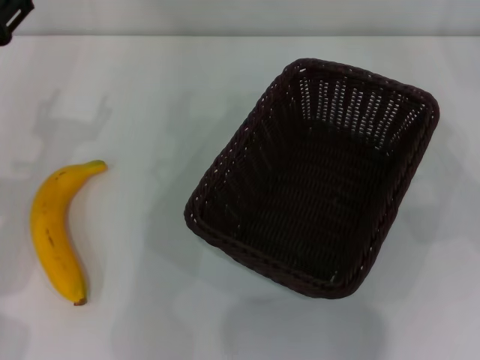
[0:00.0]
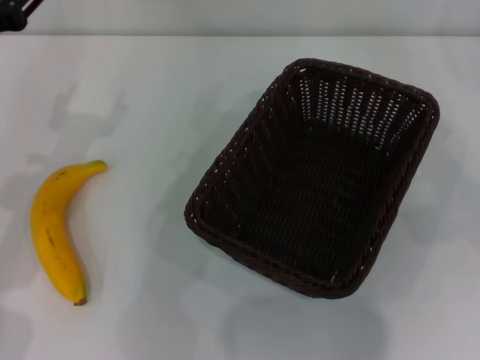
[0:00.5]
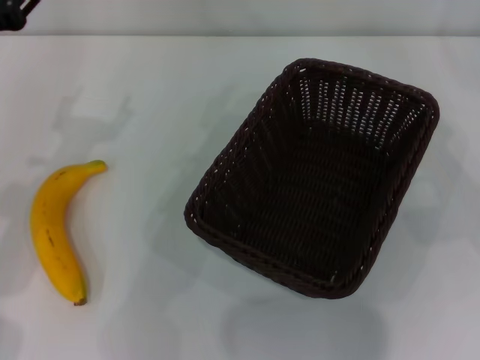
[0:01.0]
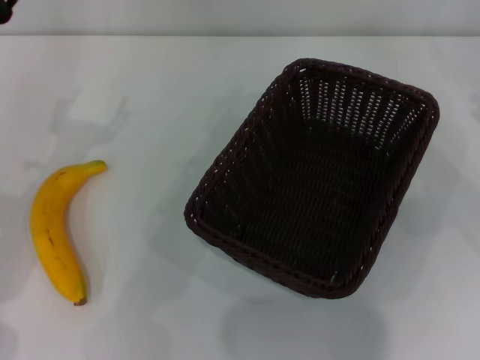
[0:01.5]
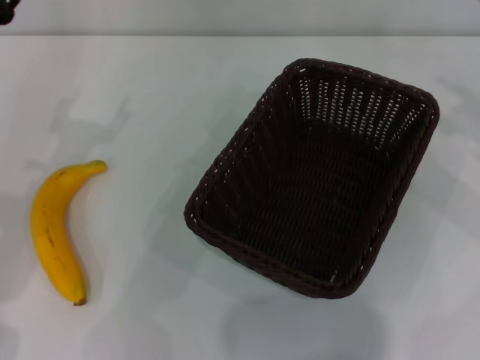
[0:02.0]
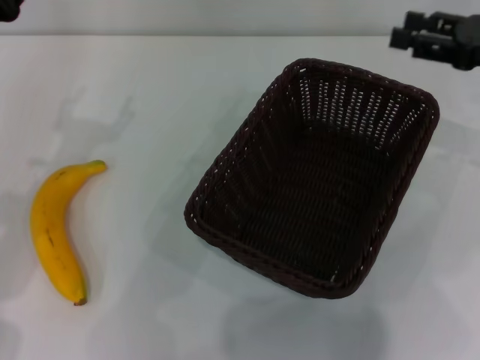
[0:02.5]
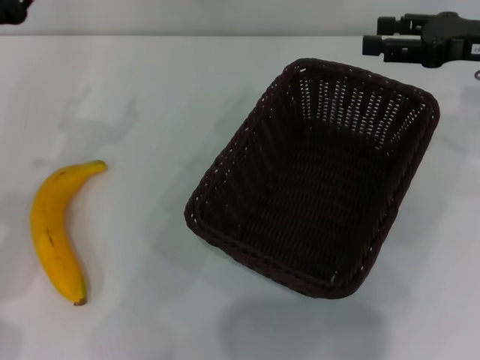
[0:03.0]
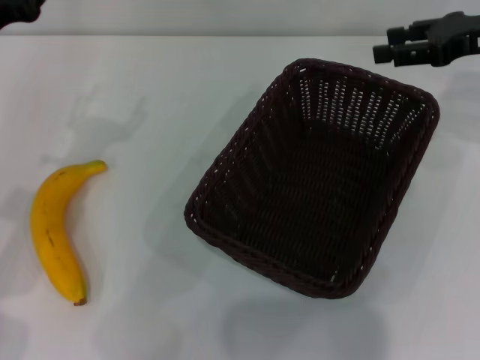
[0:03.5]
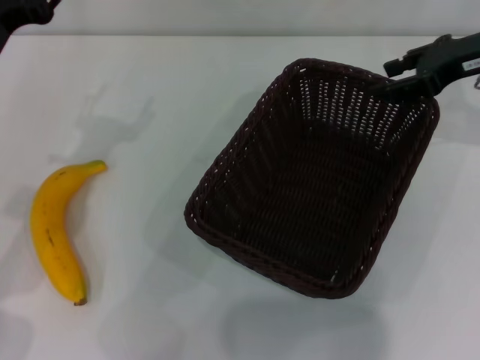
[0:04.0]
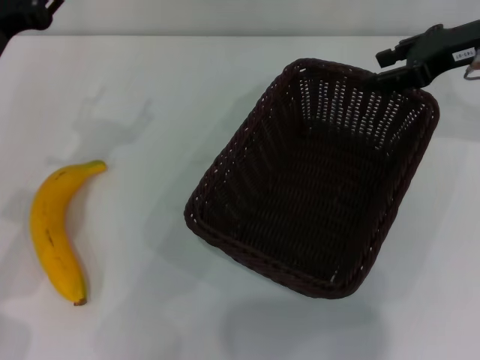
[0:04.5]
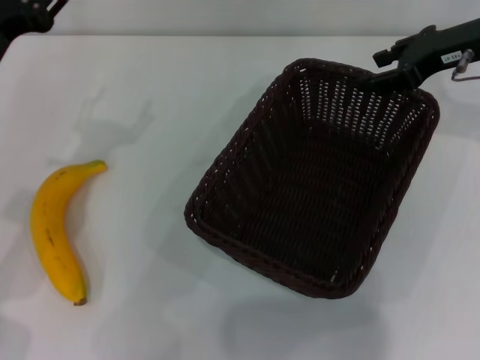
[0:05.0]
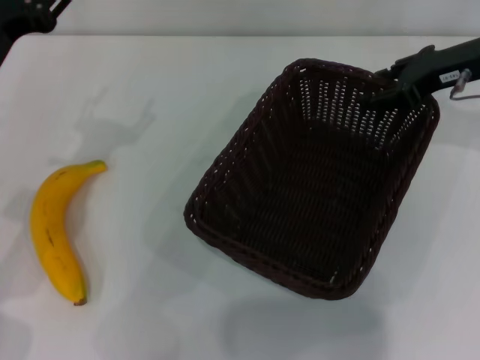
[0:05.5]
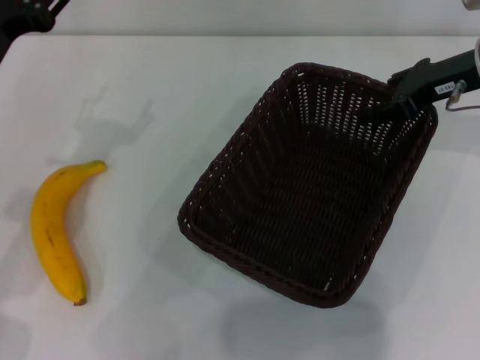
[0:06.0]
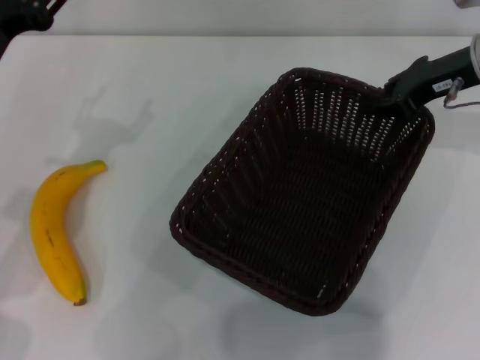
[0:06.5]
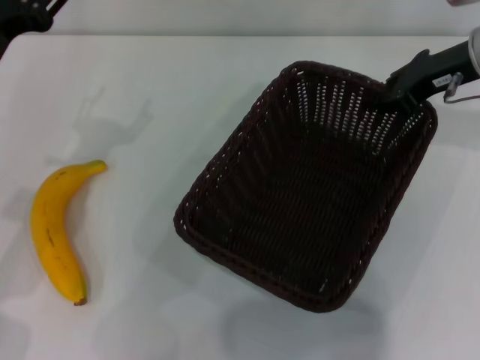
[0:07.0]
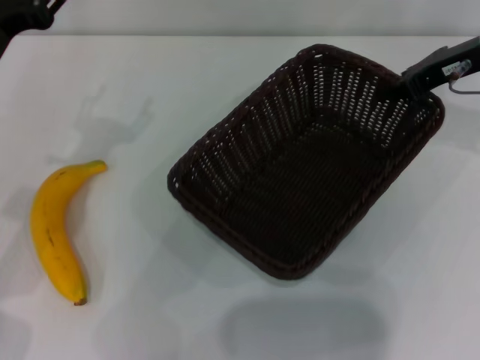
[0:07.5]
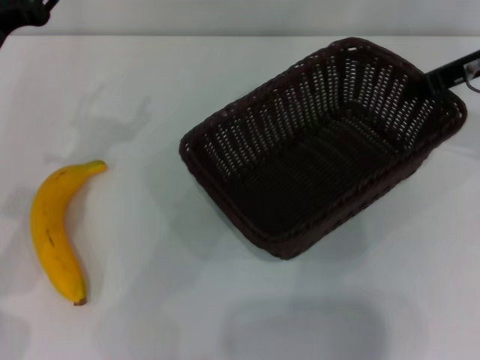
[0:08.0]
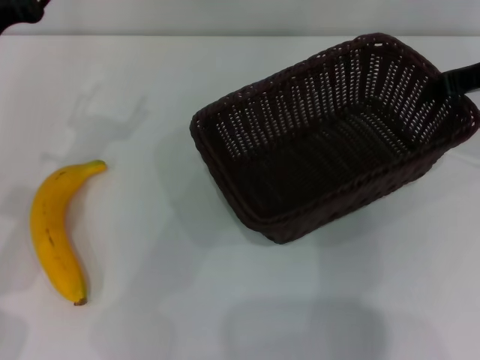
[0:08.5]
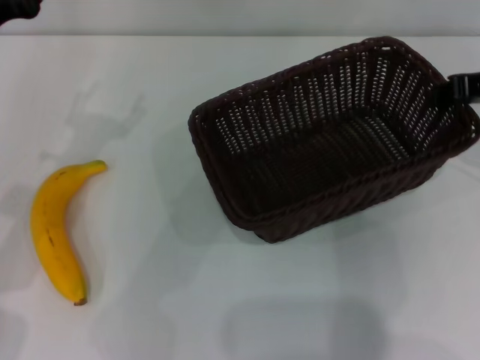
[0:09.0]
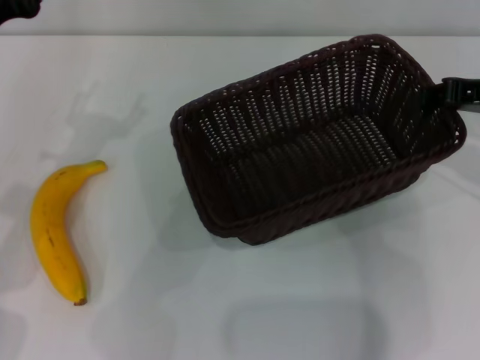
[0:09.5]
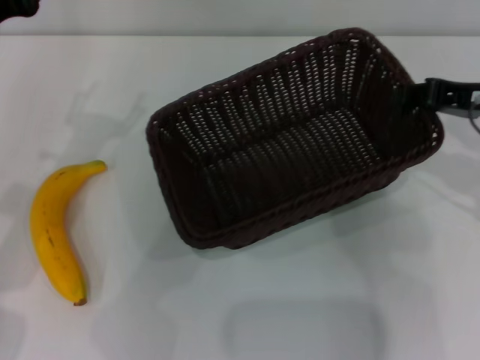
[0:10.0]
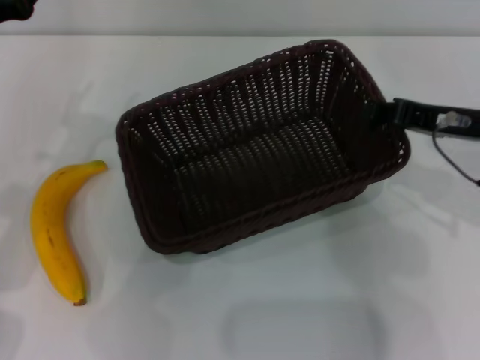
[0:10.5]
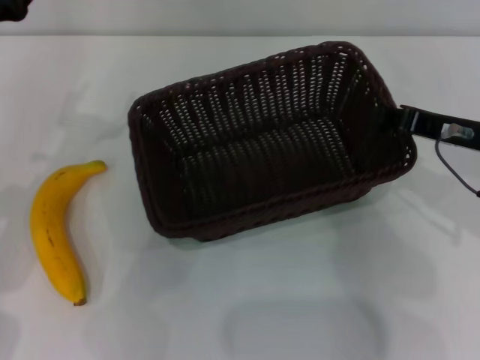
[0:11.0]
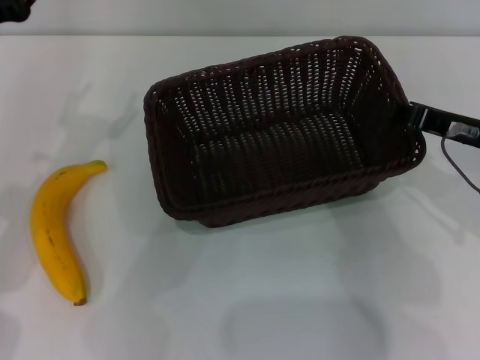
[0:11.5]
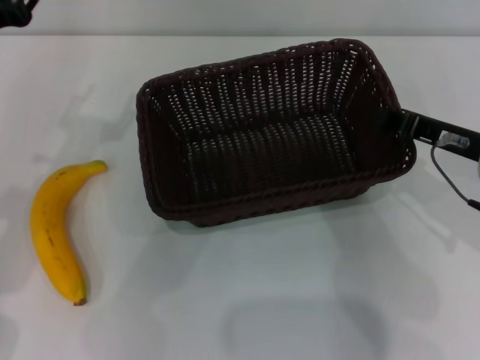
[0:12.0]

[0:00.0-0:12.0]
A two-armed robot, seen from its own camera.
Step, 0:00.0 to 0:07.5: Pick up the dark basket with the right gripper.
0:02.0 to 0:04.0: The right gripper shifts about 10 cm forward and to the left.
0:04.0 to 0:06.0: The grippers stay close to where they were, moving slightly.
0:06.0 to 0:08.0: The right gripper closes.
0:08.0 to 0:10.0: The right gripper goes approximately 10 cm backward.
0:10.0 to 0:12.0: The right gripper ends up some 5 cm from where it was.

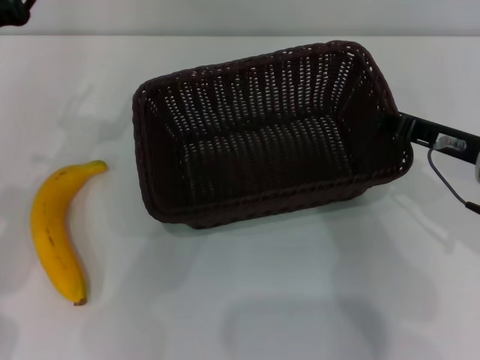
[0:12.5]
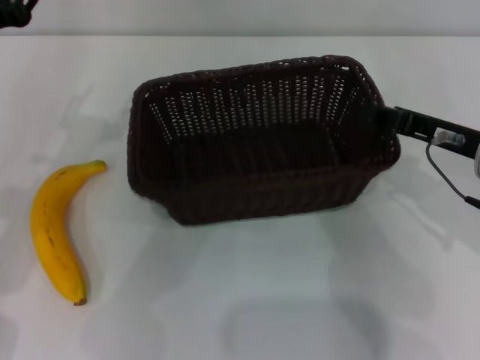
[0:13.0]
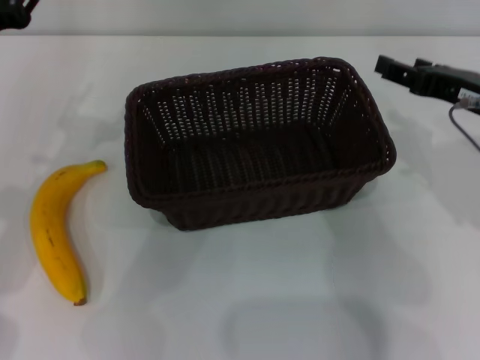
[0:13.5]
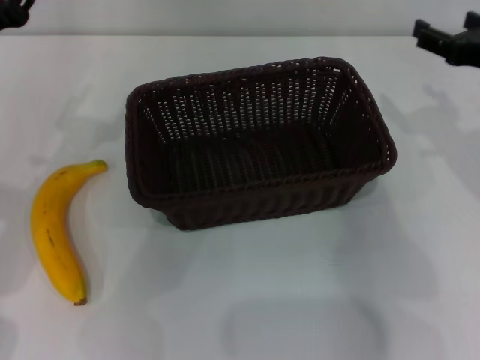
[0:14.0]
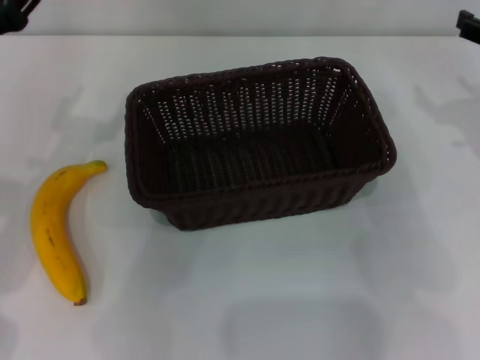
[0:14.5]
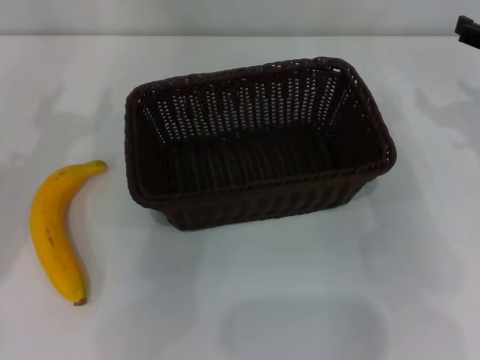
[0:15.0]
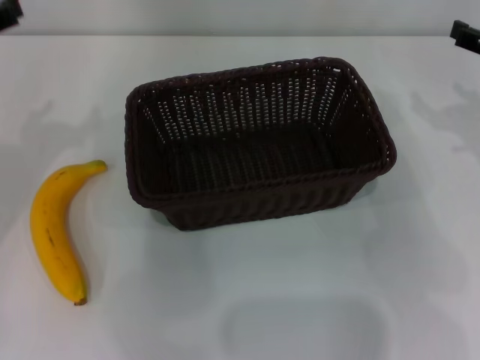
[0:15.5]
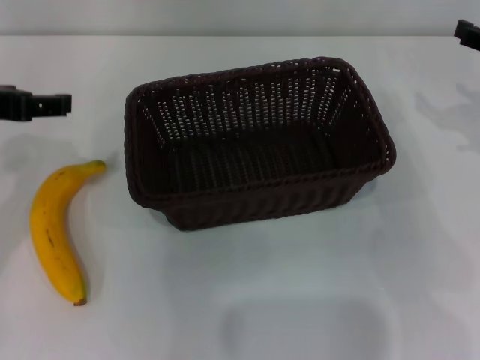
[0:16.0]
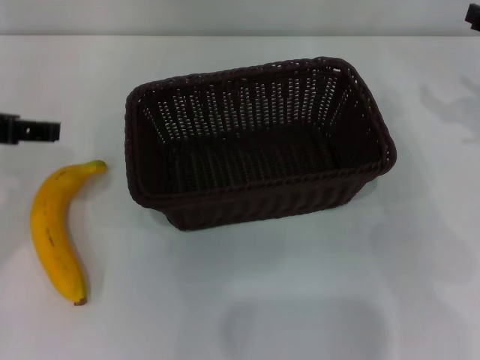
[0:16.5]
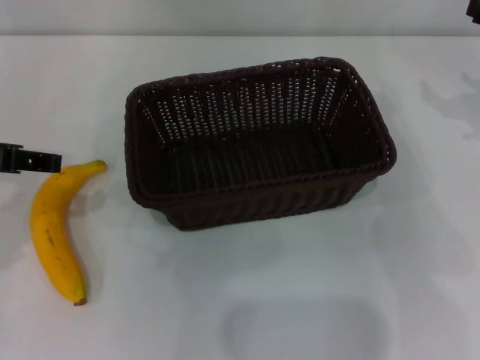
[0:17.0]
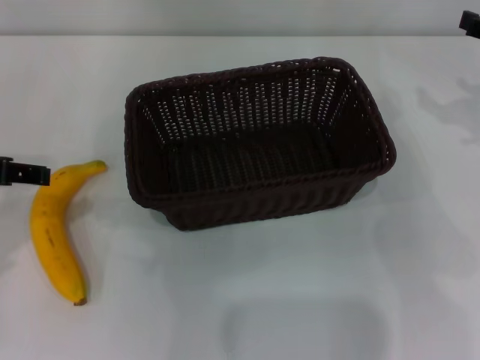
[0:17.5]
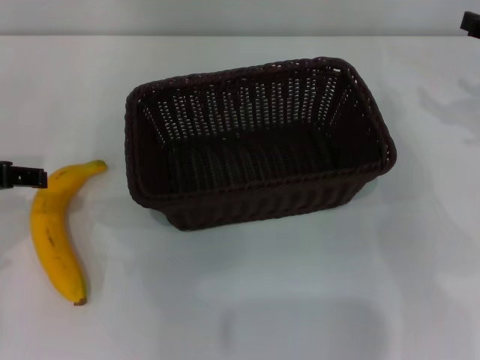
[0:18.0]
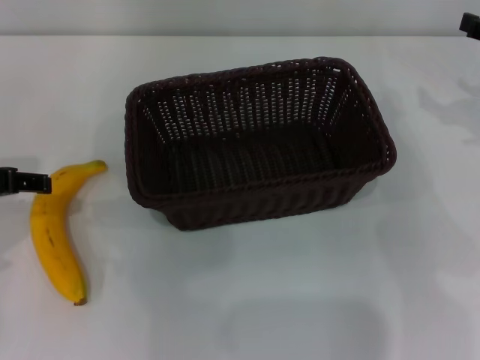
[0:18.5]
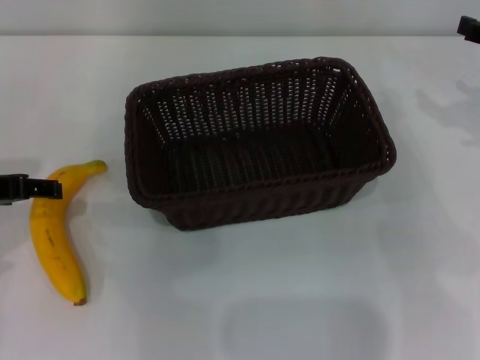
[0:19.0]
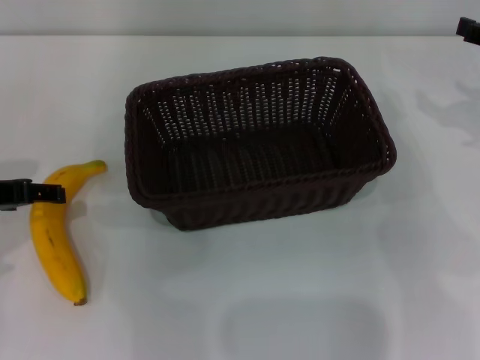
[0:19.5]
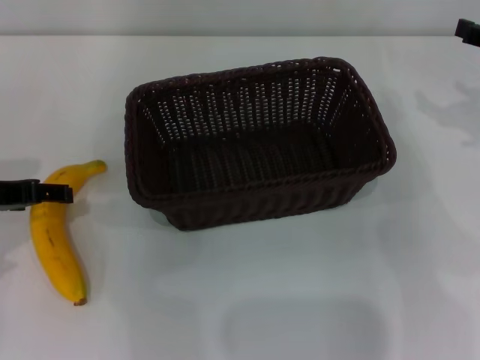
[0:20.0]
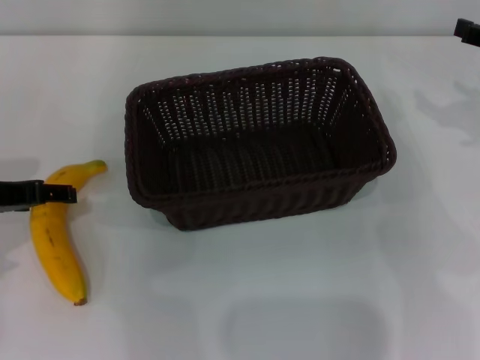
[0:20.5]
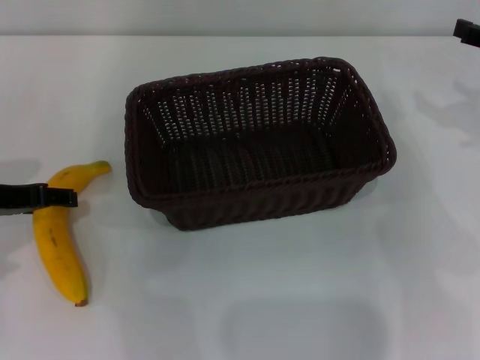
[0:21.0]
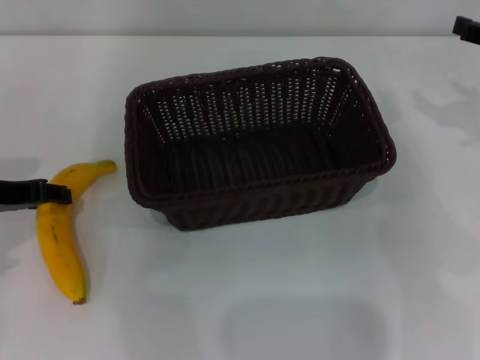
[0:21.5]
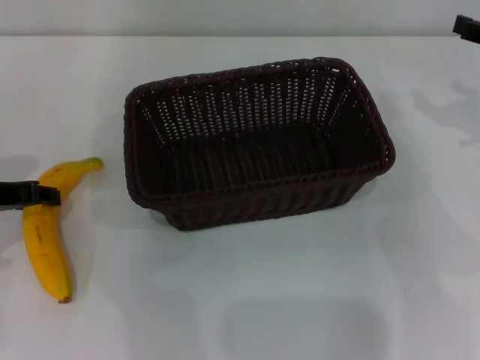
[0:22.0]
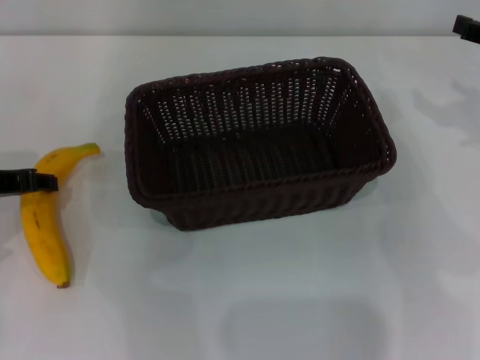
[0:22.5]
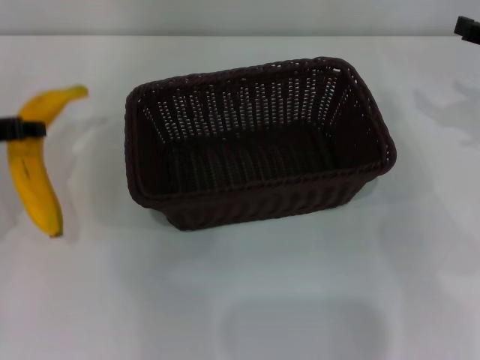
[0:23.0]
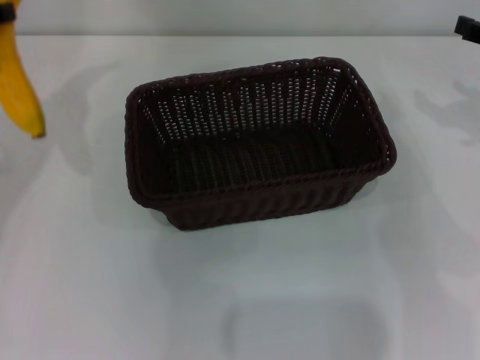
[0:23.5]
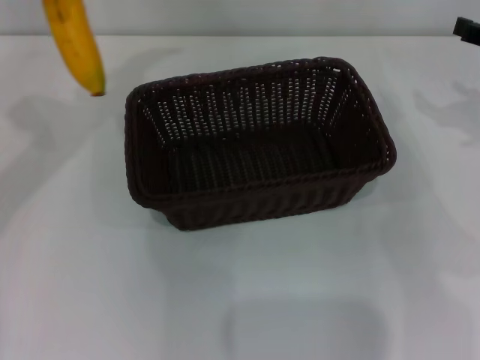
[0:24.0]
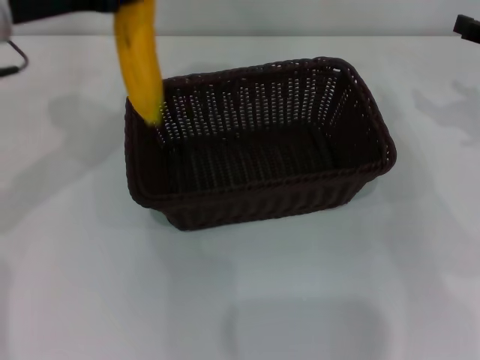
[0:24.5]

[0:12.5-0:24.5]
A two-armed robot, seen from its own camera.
Step, 0:13.5 to 0:22.5: Pick up the banana with the left gripper.
0:12.5 to 0:14.5: The right gripper heads to the right, covering some 5 cm, and opens.
0:14.5 to 0:16.5: The left gripper shifts some 5 cm upward.
0:16.5 to 0:18.5: The left gripper goes approximately 5 cm downward.
0:18.5 to 0:20.5: The grippers move only a little.
0:20.5 to 0:22.5: The left gripper closes up.
0:22.5 to 0:24.5: The left gripper travels upward and to the right by roughly 15 cm.

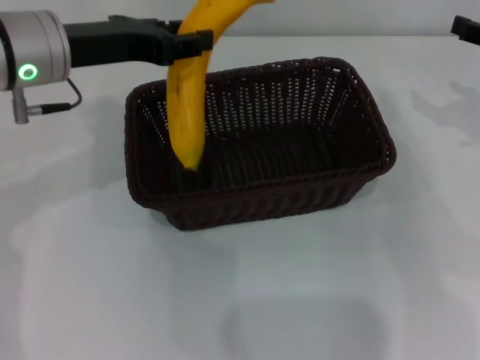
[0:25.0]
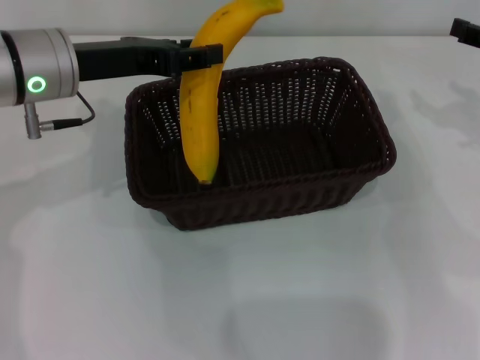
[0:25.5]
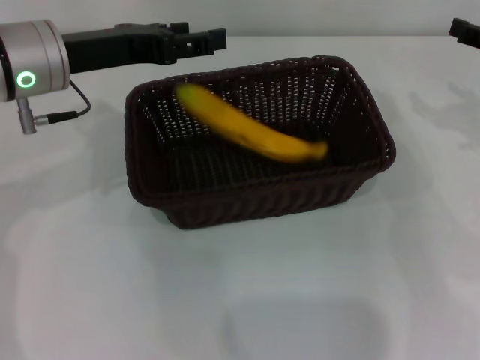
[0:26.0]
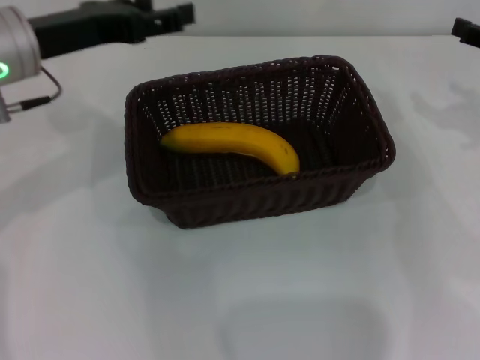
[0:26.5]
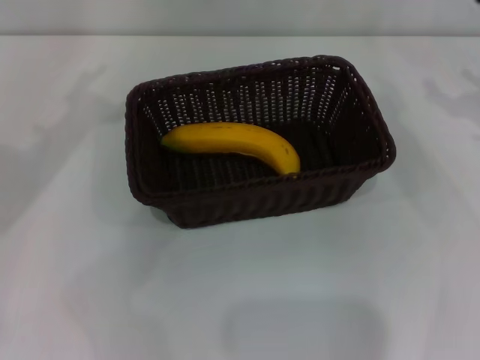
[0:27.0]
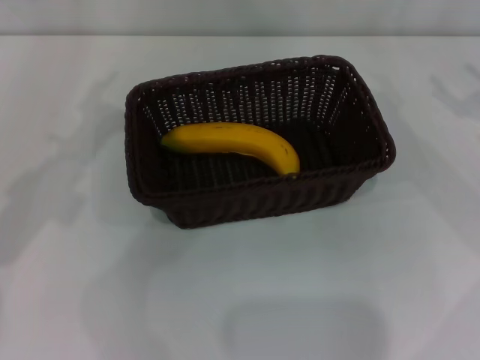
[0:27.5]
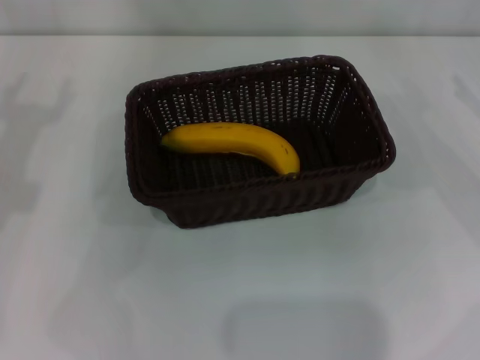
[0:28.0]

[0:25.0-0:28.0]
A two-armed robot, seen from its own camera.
0:25.0 to 0:26.5: The left gripper opens its fingers.
0:26.5 to 0:28.0: The right gripper shifts by about 5 cm. The left gripper heads to the left, covering approximately 10 cm.
